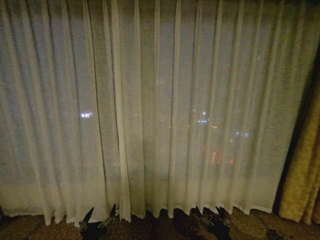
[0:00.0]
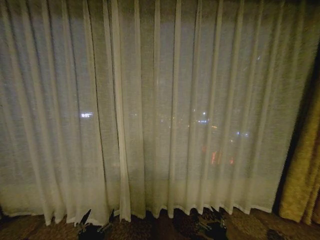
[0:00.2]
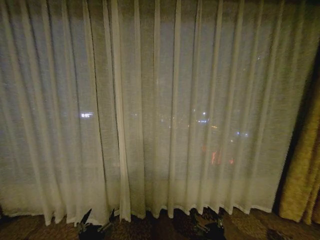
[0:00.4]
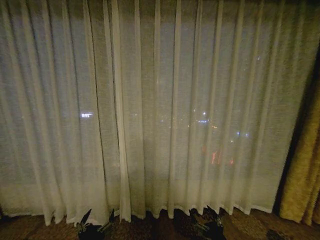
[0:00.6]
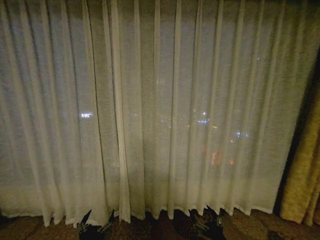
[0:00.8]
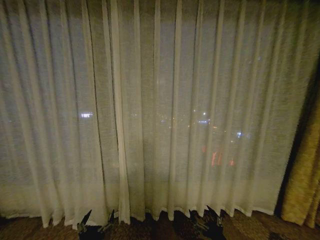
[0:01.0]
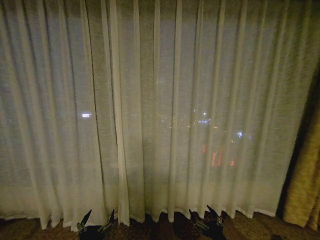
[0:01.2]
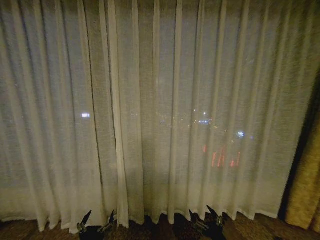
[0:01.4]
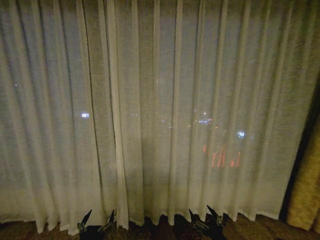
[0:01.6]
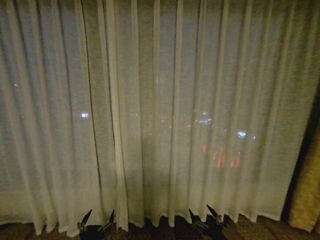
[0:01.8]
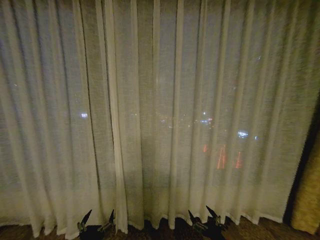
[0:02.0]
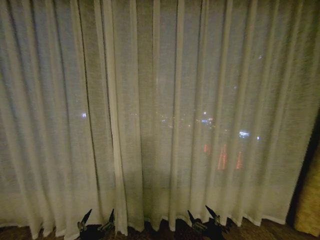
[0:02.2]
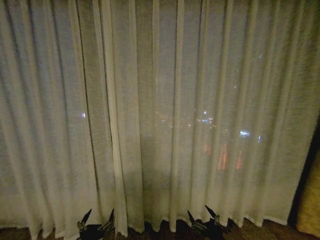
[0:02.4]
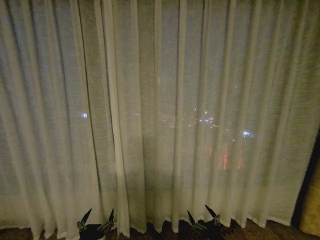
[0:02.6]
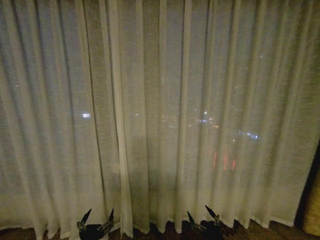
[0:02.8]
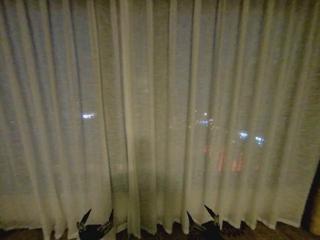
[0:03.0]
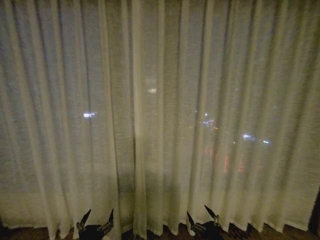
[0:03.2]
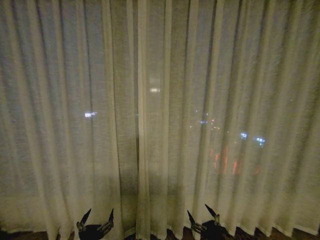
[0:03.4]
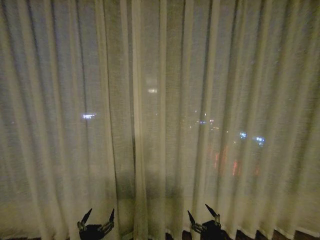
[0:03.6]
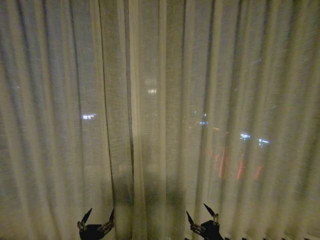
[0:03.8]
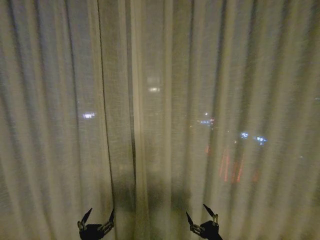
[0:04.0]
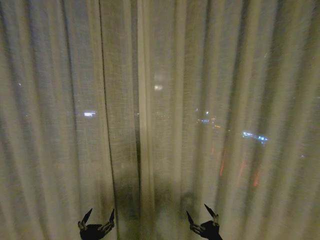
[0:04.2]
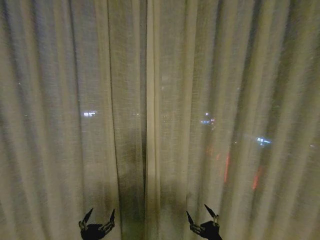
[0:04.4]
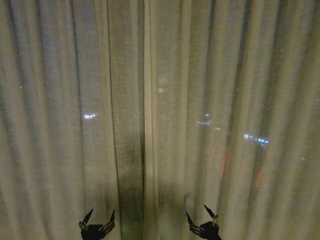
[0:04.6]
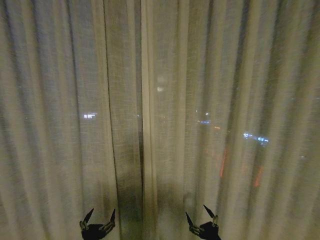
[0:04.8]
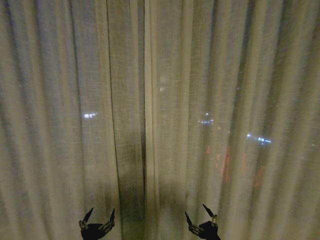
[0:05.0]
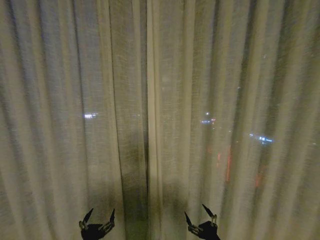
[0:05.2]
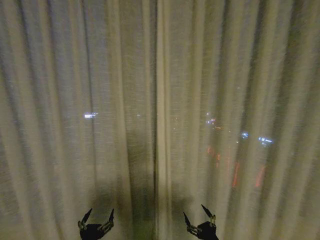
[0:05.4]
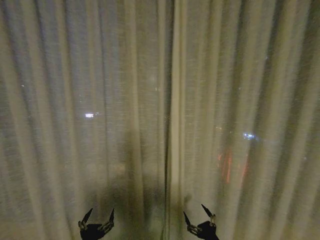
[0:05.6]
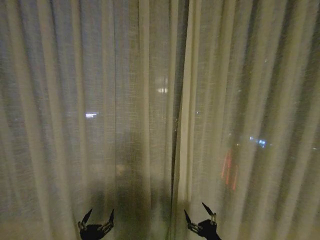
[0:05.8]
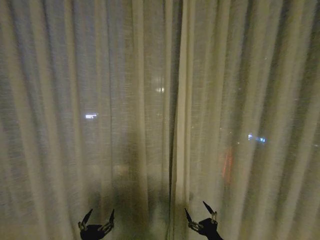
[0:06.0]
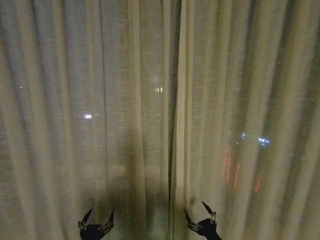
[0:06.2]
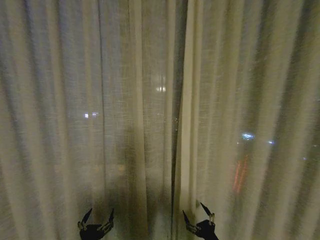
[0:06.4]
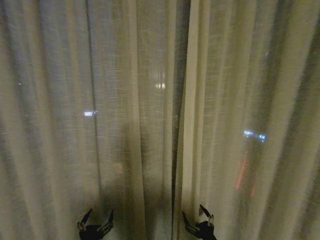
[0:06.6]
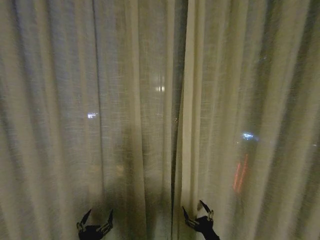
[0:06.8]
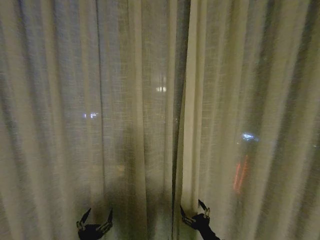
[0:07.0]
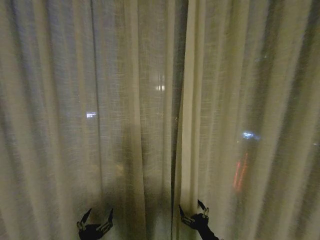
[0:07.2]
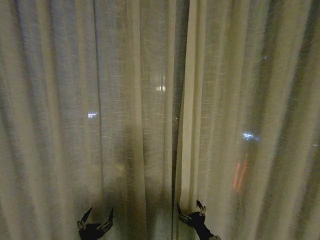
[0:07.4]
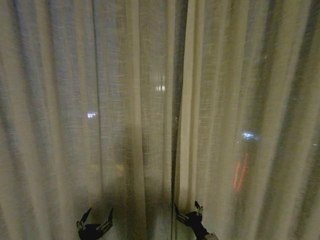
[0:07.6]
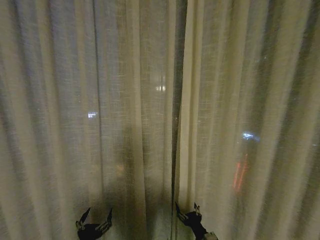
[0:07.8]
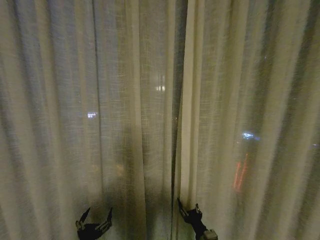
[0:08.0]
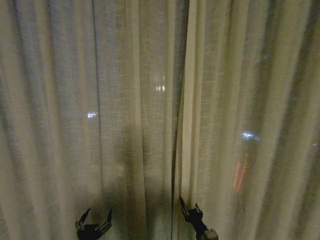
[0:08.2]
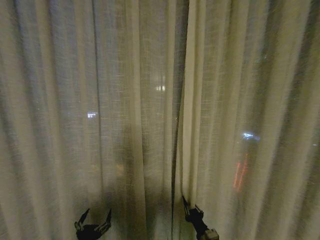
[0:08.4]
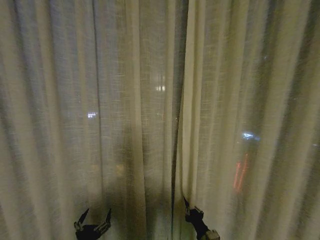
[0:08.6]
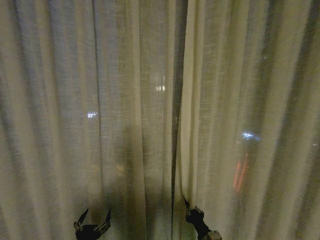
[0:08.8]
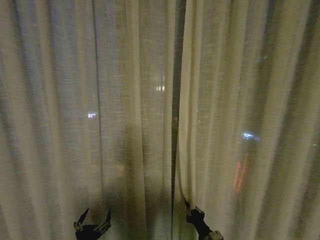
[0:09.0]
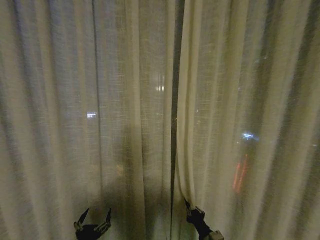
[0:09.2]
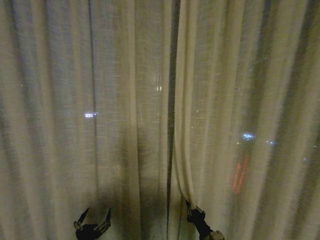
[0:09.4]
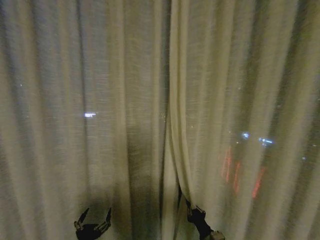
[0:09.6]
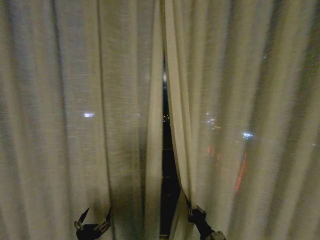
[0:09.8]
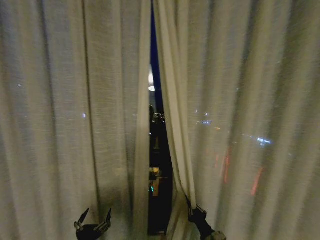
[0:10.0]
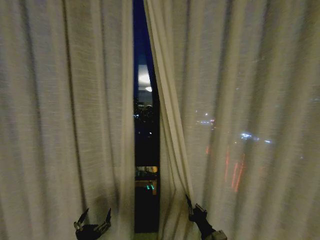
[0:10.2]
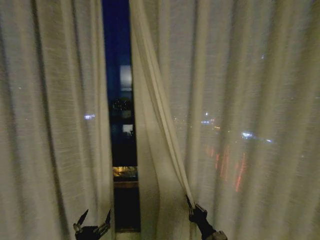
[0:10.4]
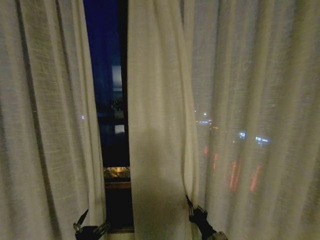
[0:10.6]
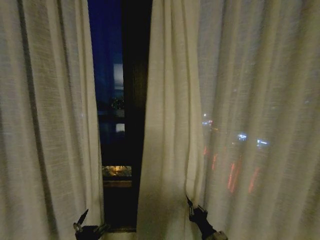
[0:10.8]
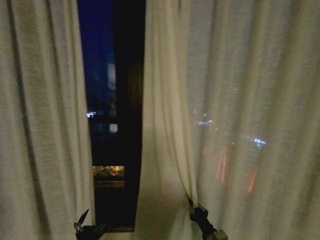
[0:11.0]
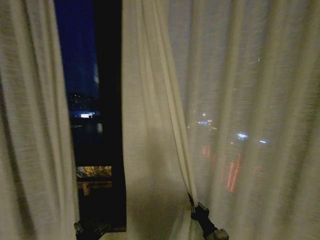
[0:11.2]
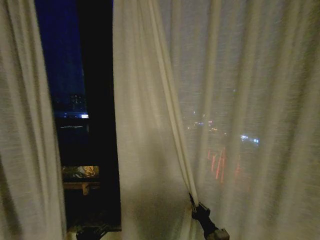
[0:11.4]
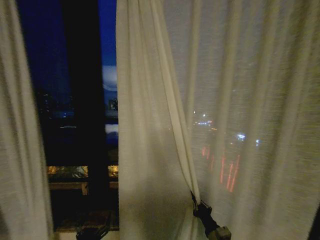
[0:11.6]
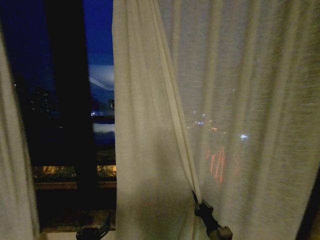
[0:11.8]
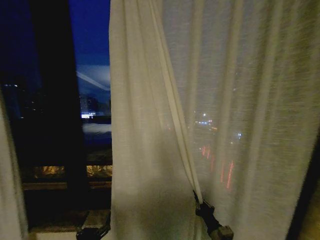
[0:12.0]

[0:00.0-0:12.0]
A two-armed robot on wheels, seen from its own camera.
Task of the whole recording: Open the curtains by pulling them apart, changing their state from closed to fully open.
0:01.6 to 0:03.0: The grippers stay close to where they were, moving slightly.
0:04.4 to 0:06.0: The two grippers keep their place.
0:06.0 to 0:07.6: The right gripper shifts approximately 5 cm to the left.
0:07.6 to 0:09.0: The right gripper closes its fingers.

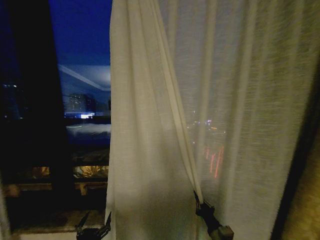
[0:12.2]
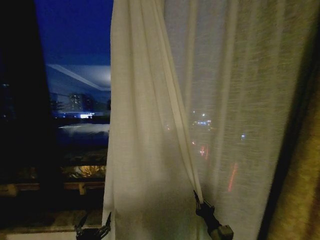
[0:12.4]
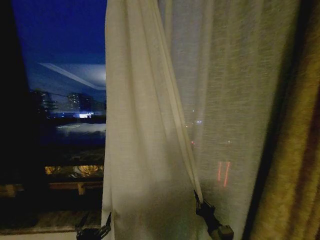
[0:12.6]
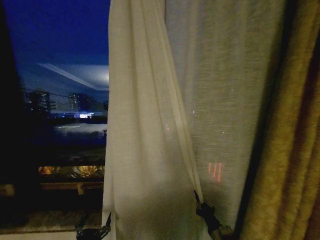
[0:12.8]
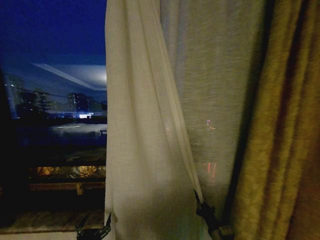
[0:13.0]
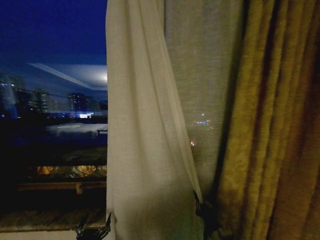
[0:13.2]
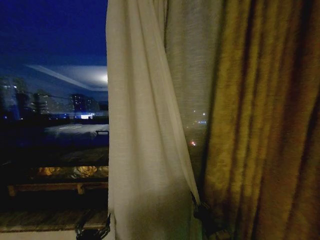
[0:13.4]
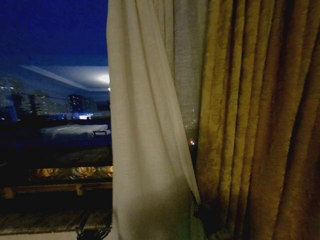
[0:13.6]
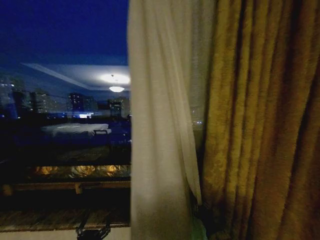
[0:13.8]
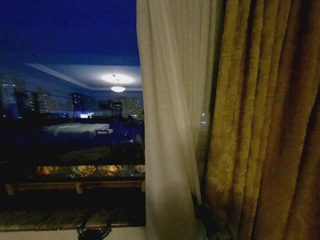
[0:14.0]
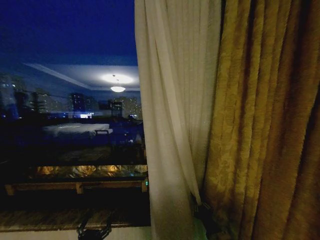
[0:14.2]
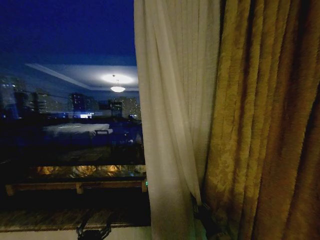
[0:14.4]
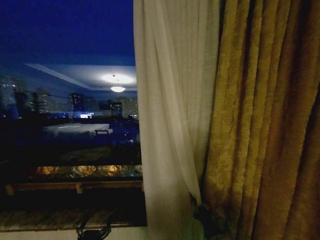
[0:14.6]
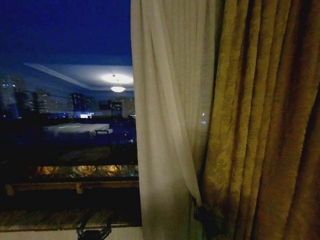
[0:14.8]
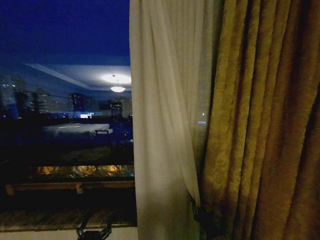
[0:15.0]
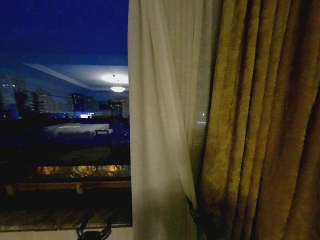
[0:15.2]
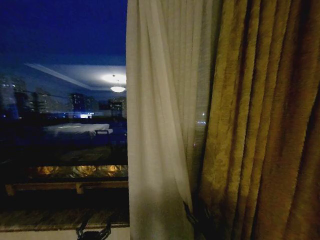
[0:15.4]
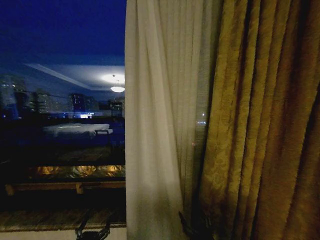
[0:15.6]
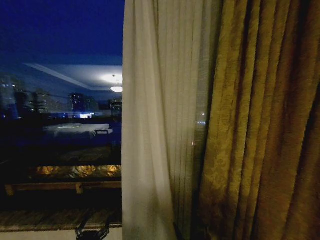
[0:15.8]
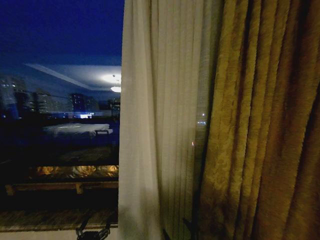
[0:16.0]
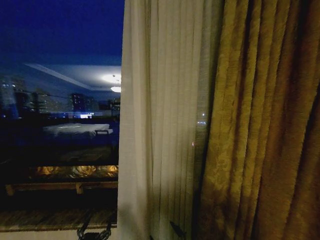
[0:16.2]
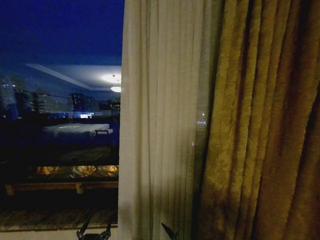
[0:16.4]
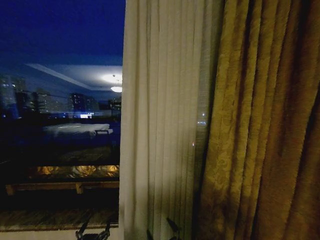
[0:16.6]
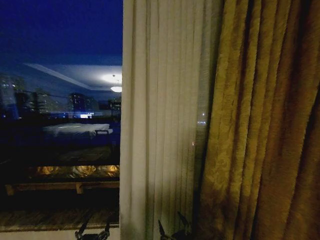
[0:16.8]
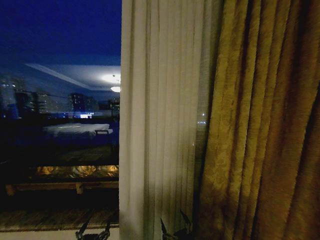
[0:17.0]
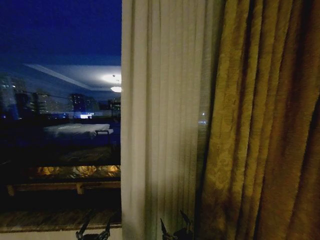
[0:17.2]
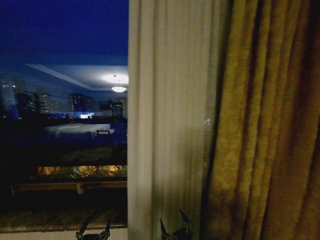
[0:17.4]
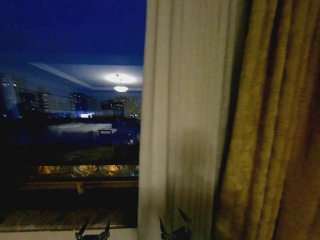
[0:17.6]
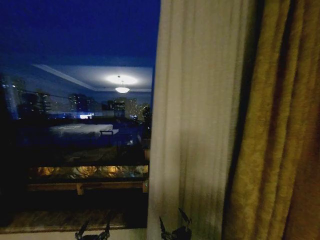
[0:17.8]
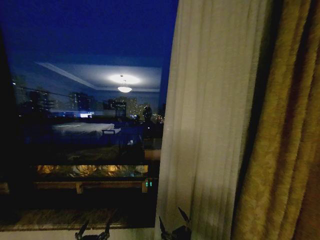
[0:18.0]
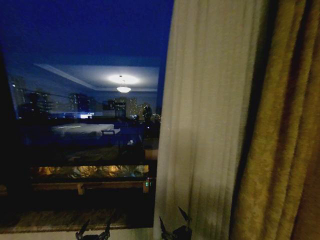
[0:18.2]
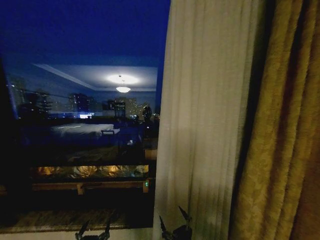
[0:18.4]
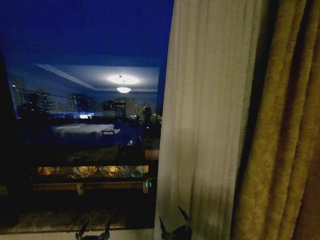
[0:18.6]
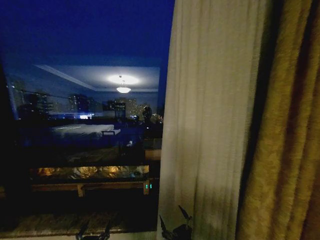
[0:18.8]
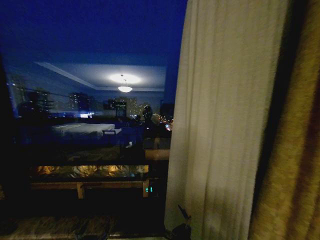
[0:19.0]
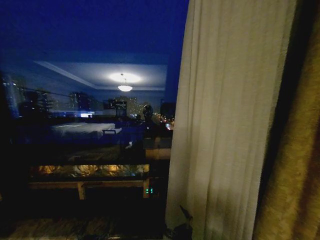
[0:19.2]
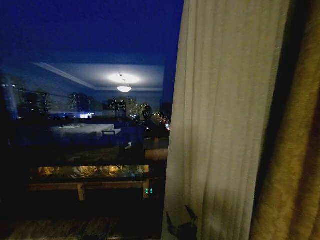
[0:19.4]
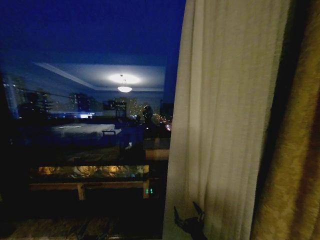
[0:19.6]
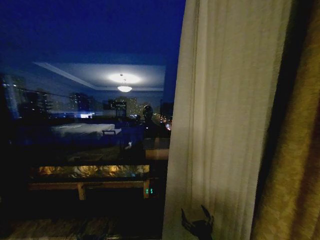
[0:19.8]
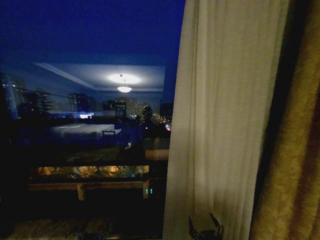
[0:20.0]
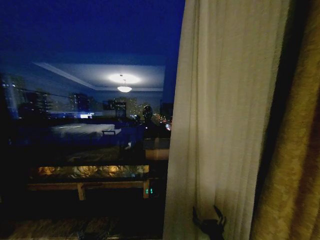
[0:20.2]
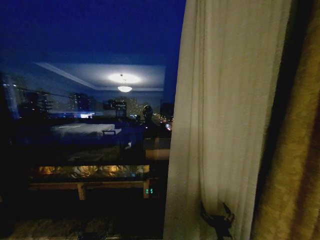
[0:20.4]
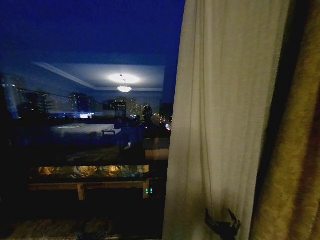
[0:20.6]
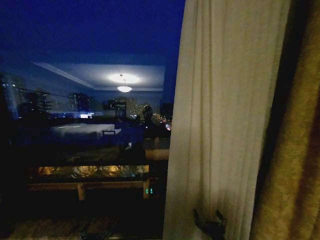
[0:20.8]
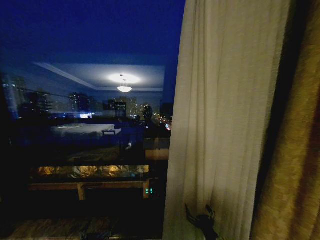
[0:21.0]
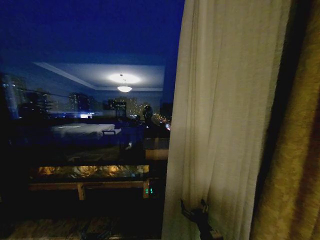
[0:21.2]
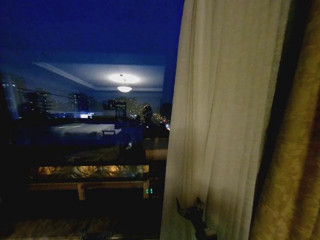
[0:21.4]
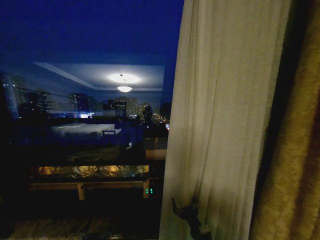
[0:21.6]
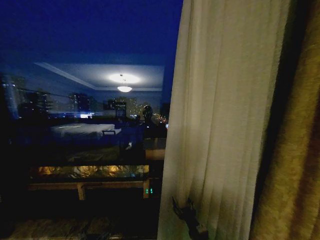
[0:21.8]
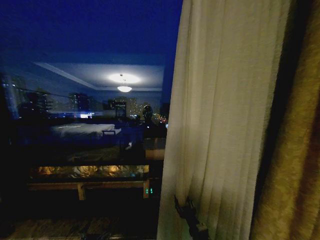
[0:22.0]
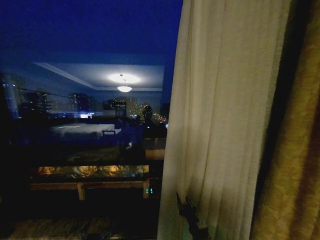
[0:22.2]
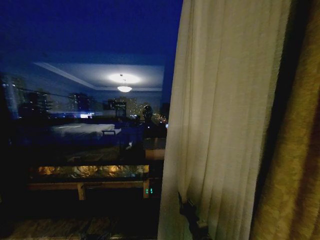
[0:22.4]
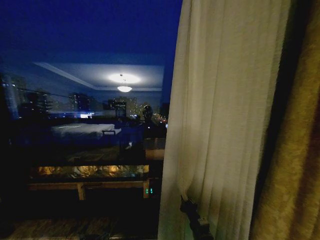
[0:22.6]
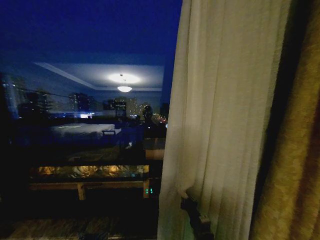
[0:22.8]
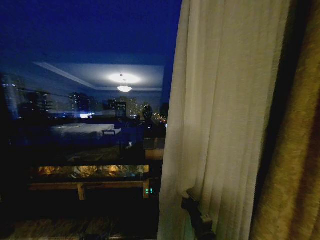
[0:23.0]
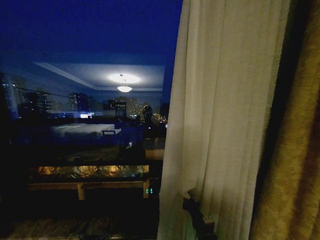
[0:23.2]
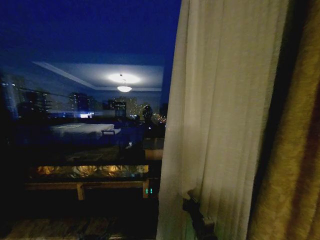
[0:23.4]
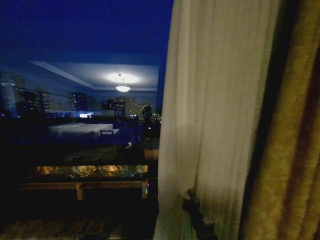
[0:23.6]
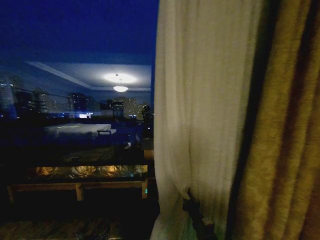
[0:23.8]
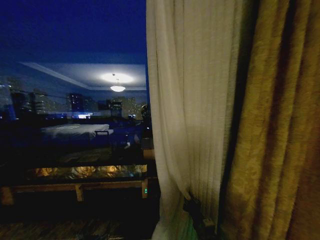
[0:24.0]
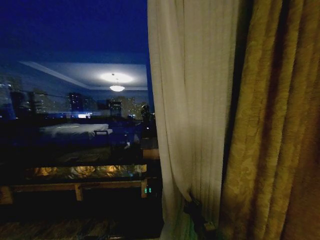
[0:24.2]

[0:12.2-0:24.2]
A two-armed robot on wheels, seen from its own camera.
Task of the whole recording: Open the curtains by pulling them apart, changing their state from closed to fully open.
0:13.8 to 0:15.2: The right gripper opens its fingers.
0:15.2 to 0:16.6: The right gripper is displaced to the left and backward by approximately 15 cm, and opens its fingers.
0:19.8 to 0:21.2: The right gripper moves forward, approximately 5 cm.
0:21.2 to 0:22.6: The right gripper closes up.
